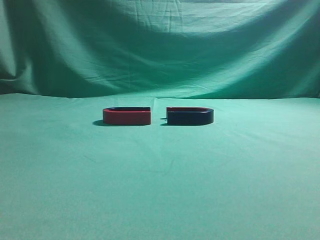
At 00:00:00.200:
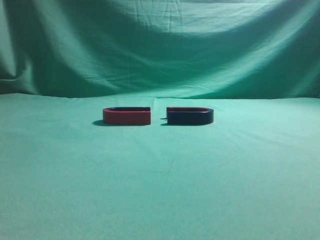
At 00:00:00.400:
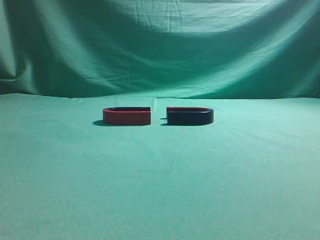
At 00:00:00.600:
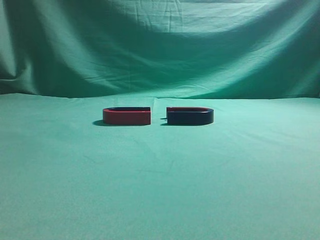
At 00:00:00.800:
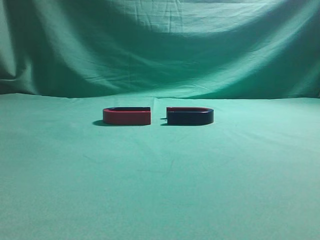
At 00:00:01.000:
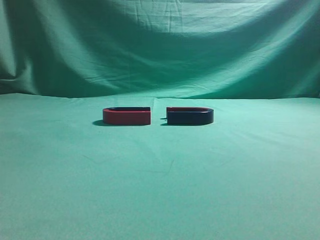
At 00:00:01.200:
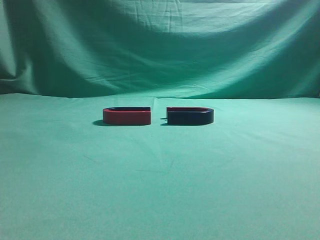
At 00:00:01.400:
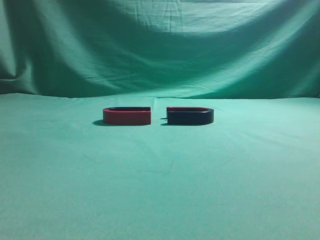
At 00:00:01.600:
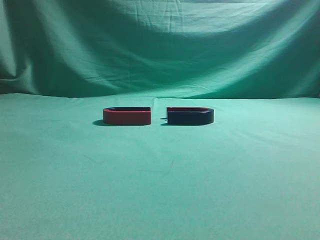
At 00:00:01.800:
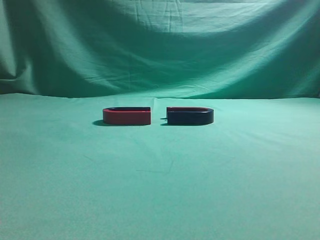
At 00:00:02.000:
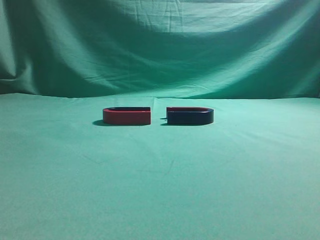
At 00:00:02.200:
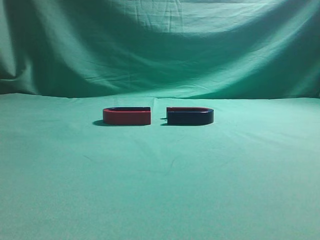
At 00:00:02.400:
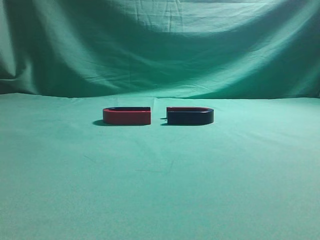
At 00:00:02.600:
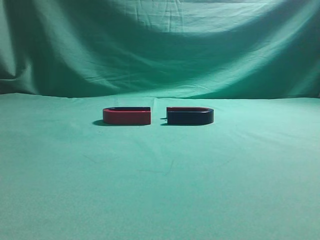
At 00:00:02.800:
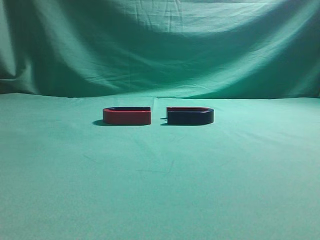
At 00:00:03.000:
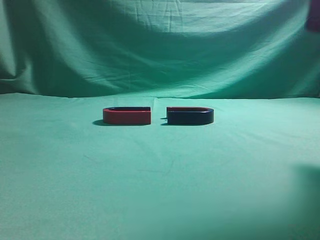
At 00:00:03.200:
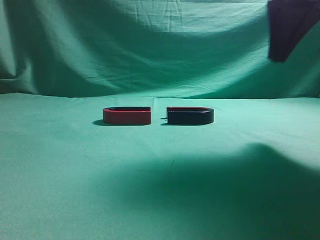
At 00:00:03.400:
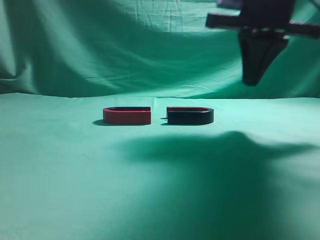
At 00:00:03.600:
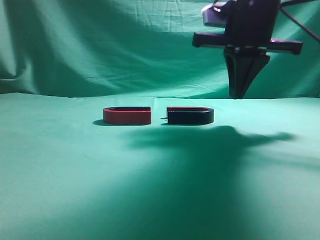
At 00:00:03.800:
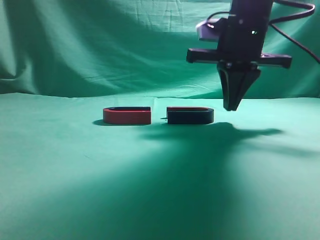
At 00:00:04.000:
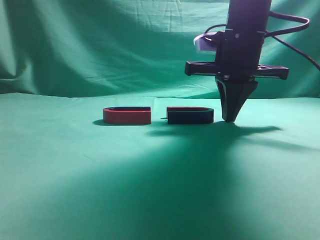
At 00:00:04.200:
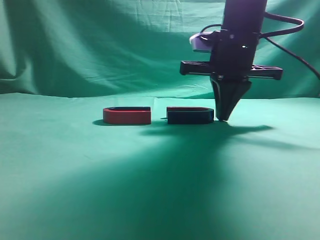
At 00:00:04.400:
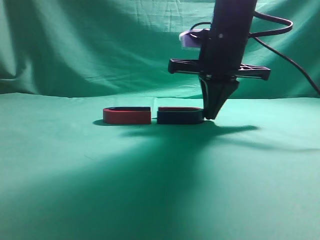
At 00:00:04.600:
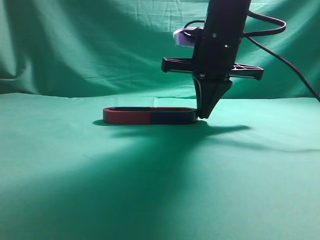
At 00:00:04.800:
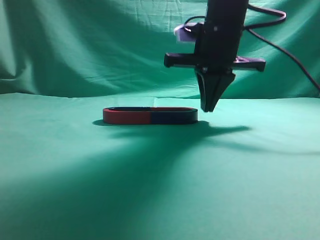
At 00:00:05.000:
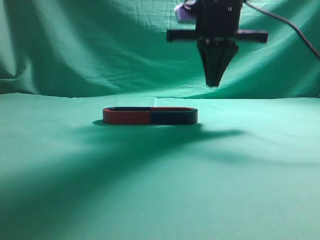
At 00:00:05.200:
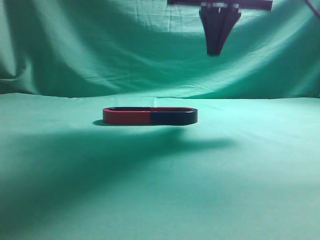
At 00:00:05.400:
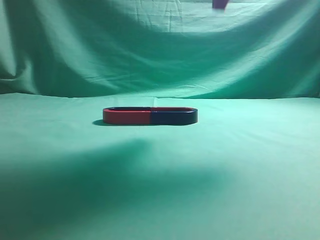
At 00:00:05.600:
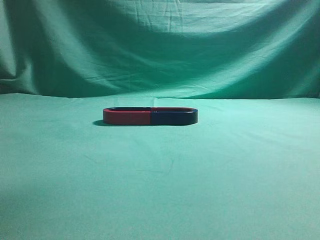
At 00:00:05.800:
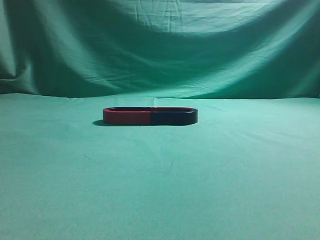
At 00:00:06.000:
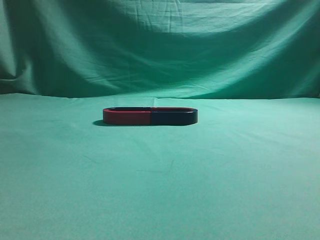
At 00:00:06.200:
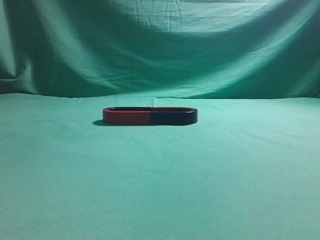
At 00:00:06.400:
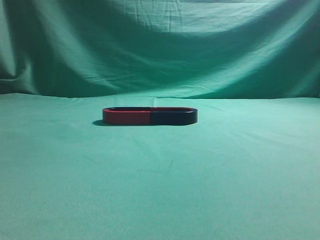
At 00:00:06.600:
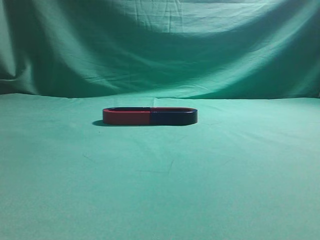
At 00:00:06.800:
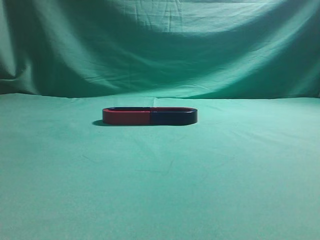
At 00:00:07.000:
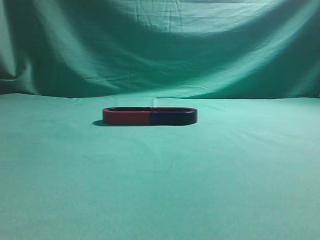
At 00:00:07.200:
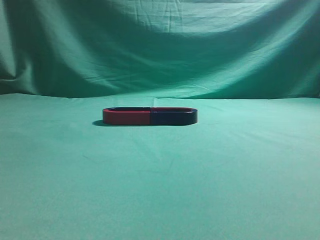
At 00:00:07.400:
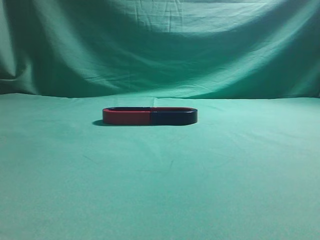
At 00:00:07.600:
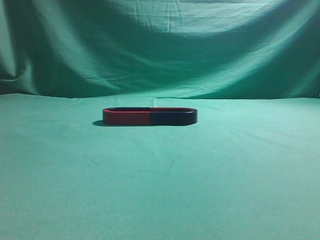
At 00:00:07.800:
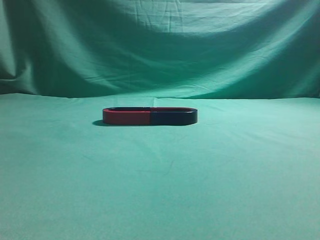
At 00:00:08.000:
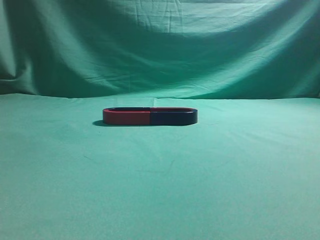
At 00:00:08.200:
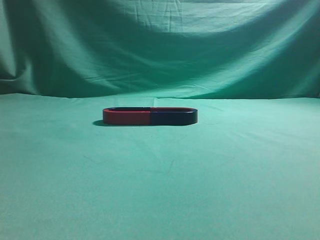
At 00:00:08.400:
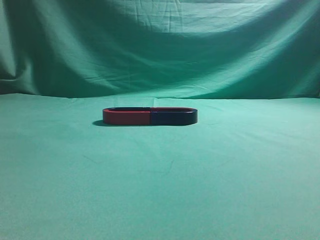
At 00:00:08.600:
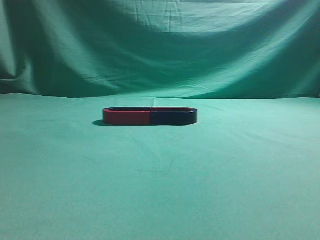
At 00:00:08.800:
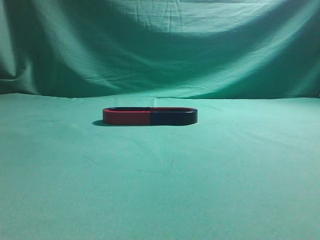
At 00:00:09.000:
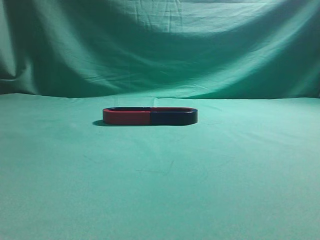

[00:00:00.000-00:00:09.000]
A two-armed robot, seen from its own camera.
Task of the whole recording: push the magnet on the table from its original position to another position.
Step, 00:00:00.000 to 00:00:04.600: Push the magnet on the right to connect the magnet on the left.
00:00:01.600 to 00:00:03.000: The right gripper moves forward, about 20 cm.
00:00:03.000 to 00:00:04.400: The right gripper travels forward, downward and to the left by about 20 cm.
00:00:04.400 to 00:00:06.000: The right gripper heads upward and backward, covering roughly 30 cm.
